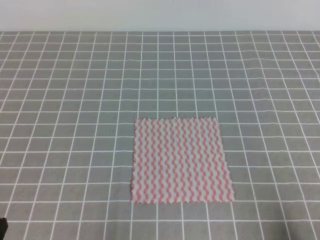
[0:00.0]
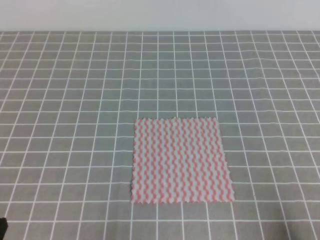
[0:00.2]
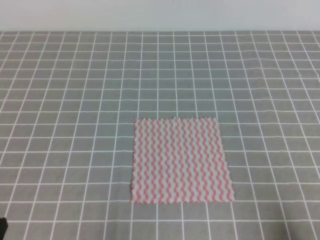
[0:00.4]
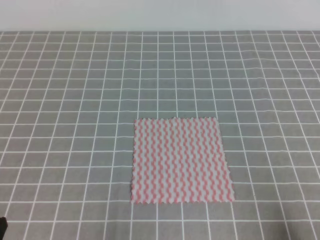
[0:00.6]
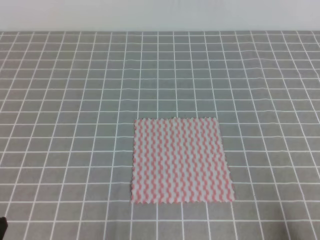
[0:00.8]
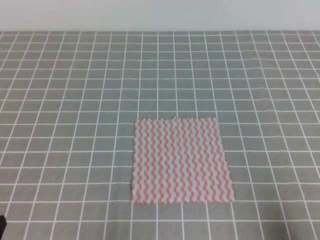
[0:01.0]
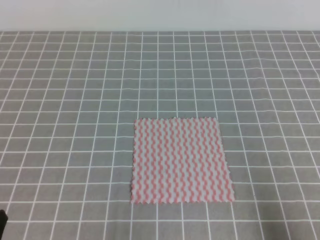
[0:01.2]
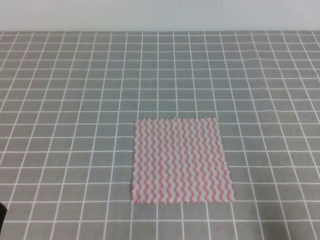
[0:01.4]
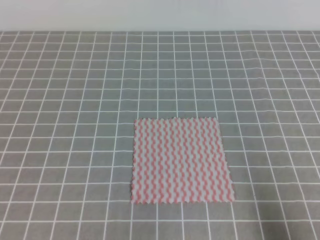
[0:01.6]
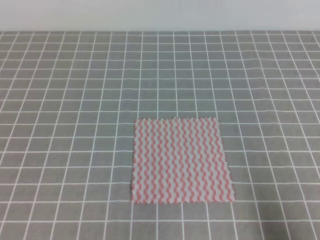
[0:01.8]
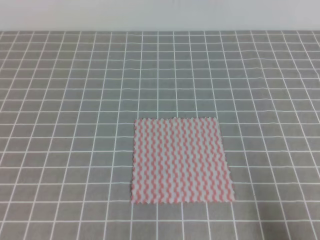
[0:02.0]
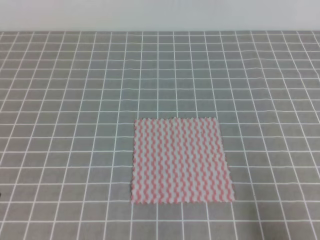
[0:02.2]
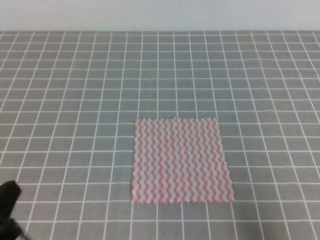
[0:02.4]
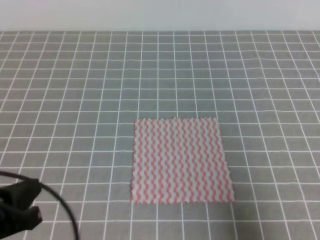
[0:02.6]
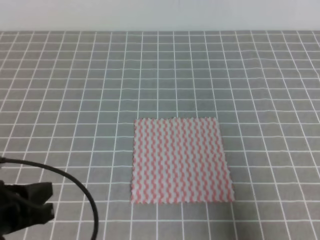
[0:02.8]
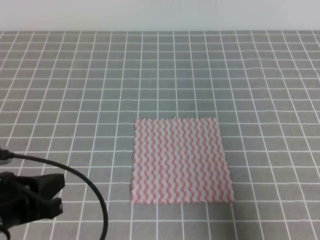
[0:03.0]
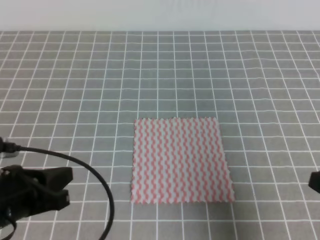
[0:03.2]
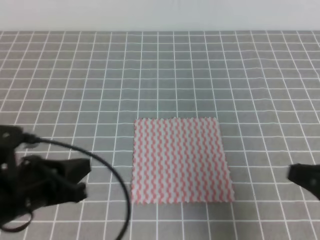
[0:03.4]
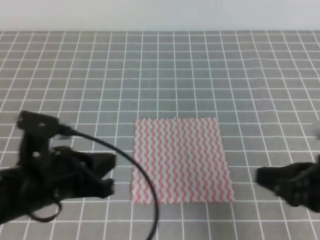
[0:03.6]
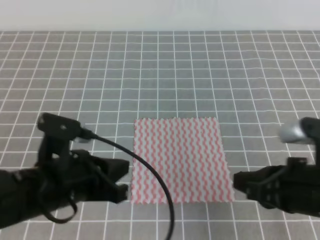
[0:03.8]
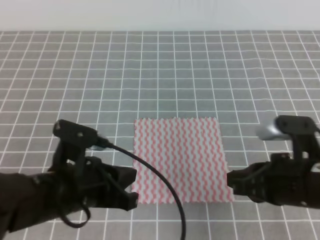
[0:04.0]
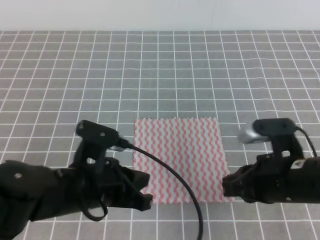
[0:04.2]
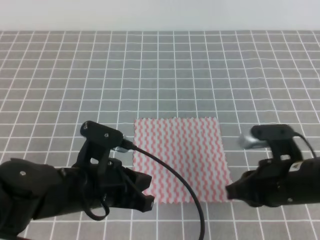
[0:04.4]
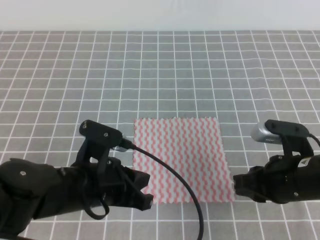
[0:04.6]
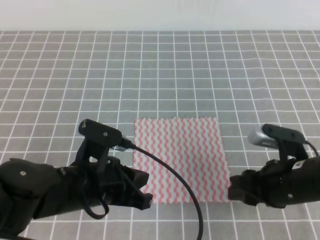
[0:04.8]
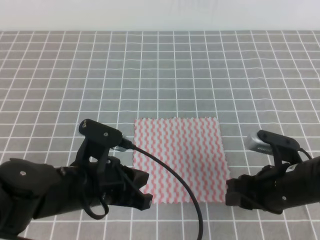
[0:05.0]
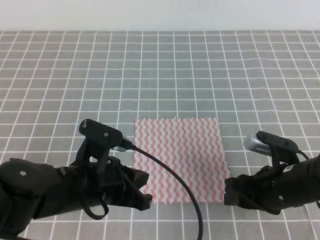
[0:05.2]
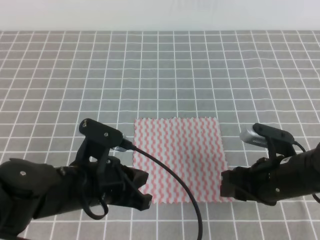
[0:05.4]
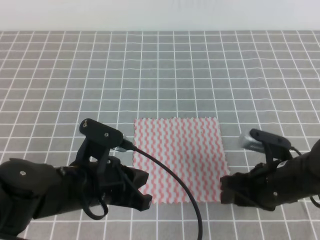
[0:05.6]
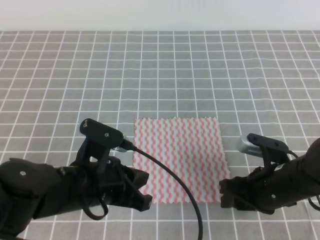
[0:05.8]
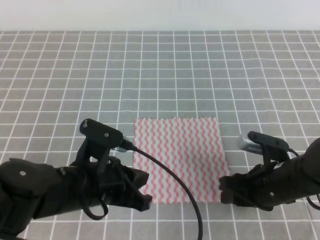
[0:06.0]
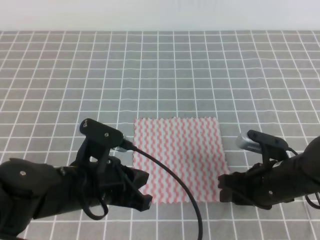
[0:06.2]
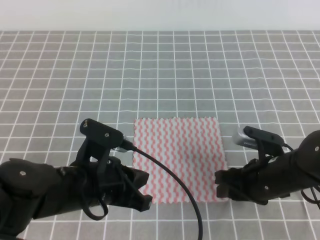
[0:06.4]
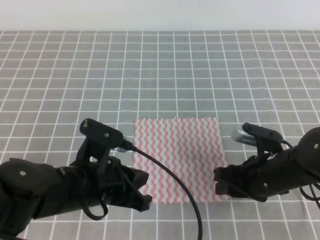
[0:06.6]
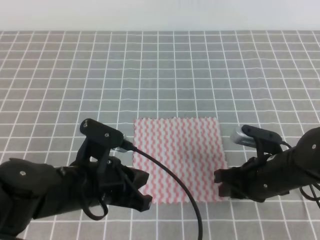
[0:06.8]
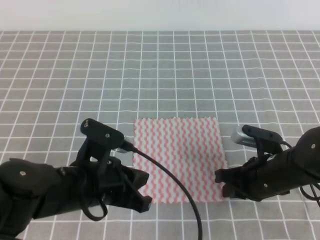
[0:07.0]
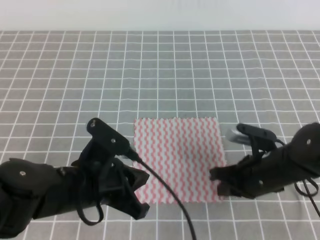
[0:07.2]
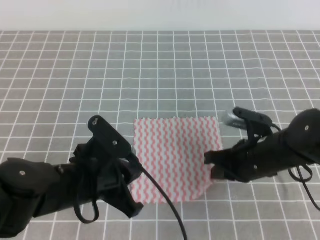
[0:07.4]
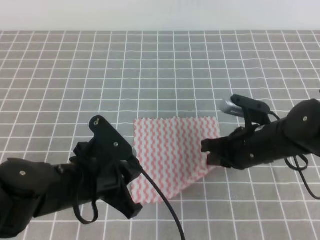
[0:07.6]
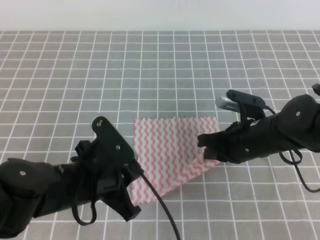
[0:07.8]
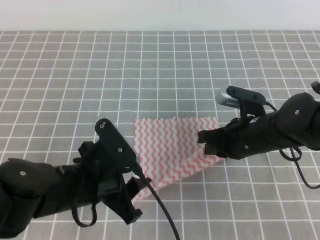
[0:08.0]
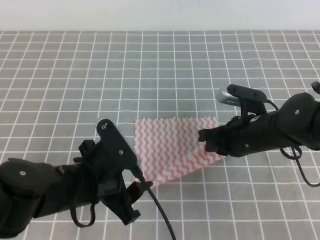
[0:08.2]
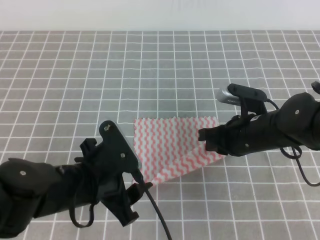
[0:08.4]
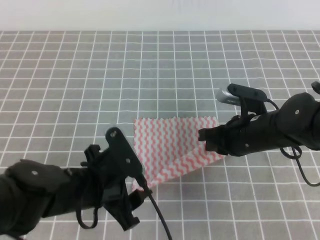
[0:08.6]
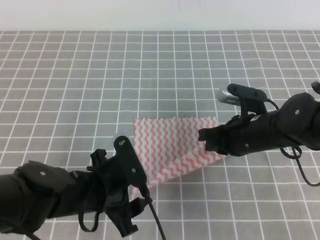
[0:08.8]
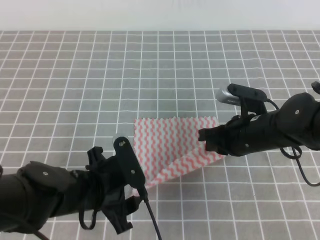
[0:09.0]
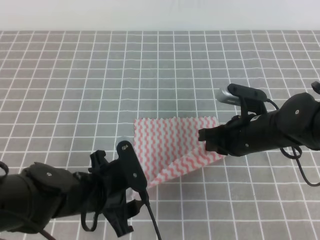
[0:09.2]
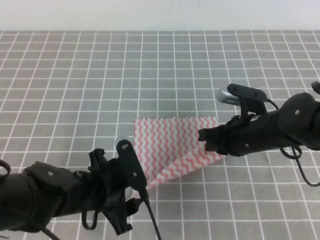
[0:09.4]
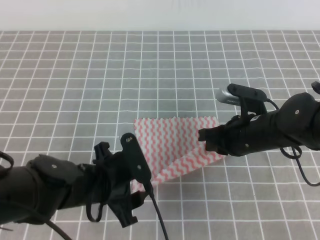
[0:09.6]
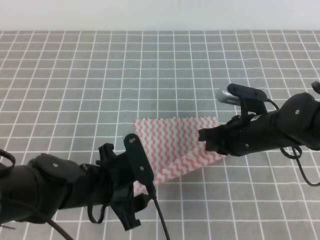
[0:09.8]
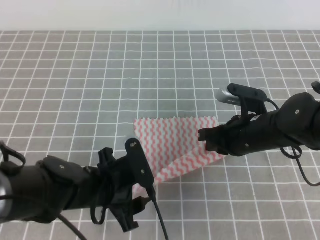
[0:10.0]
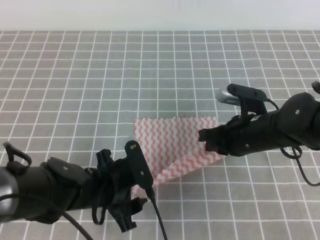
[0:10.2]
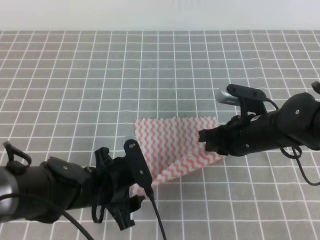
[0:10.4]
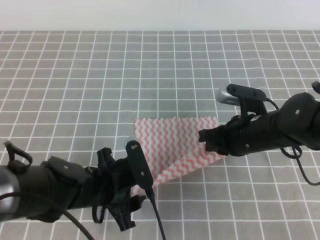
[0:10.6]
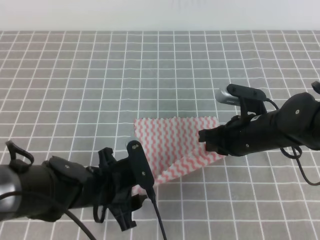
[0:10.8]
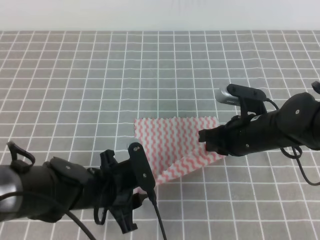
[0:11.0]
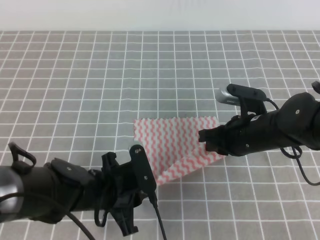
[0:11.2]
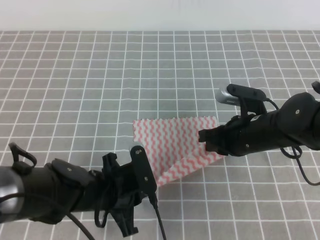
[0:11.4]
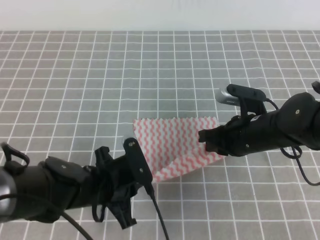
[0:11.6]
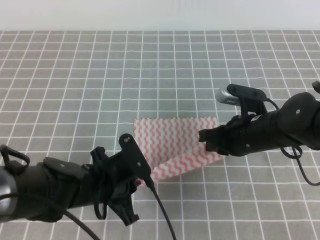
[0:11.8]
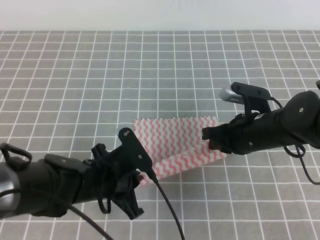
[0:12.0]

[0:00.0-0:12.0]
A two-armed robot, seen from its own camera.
0:01.6 to 0:03.0: The left gripper heads forward, covering about 10 cm; the right gripper moves upward, roughly 5 cm.
0:03.0 to 0:04.4: The left gripper travels to the right and forward by about 10 cm; the right gripper travels forward, to the left and downward by about 15 cm.
0:04.4 to 0:06.0: The right gripper goes roughly 5 cm downward, and opens.
0:06.0 to 0:07.6: The right gripper changes place by some 5 cm, and closes.
0:07.6 to 0:09.0: The left gripper opens its fingers.
0:09.0 to 0:10.4: The grippers stay close to where they were, moving slightly.
0:10.4 to 0:12.0: The left gripper closes.

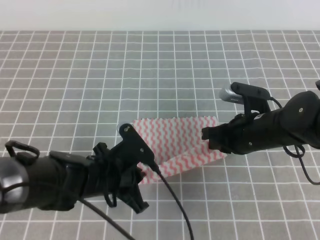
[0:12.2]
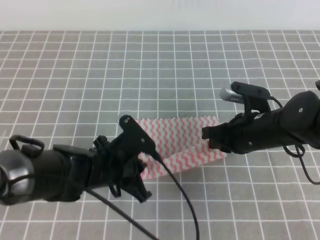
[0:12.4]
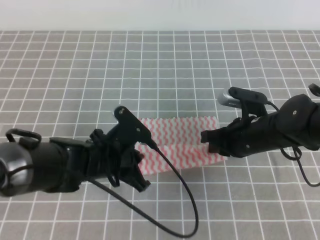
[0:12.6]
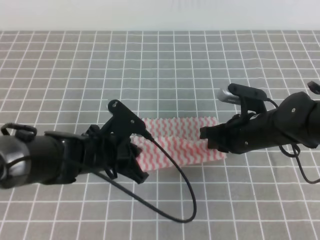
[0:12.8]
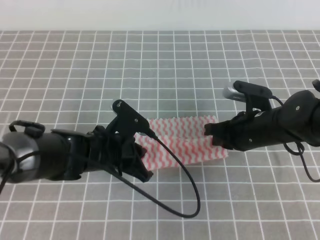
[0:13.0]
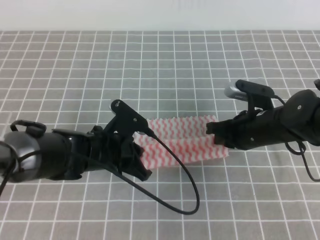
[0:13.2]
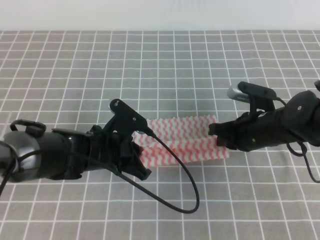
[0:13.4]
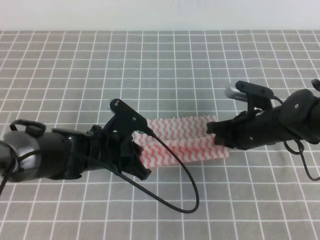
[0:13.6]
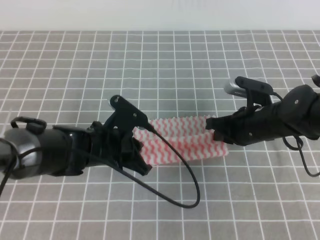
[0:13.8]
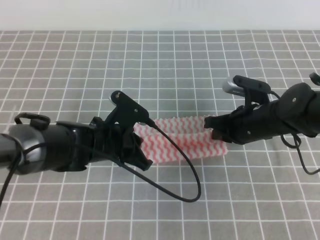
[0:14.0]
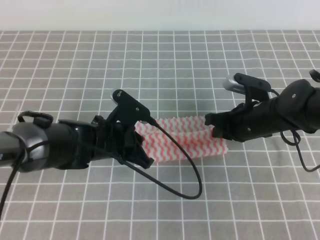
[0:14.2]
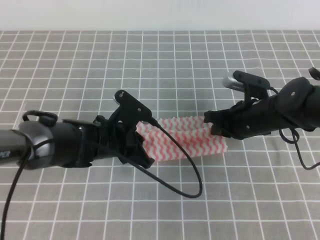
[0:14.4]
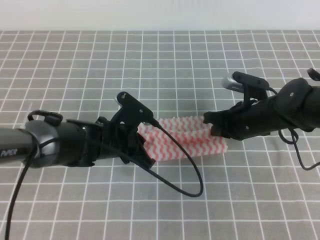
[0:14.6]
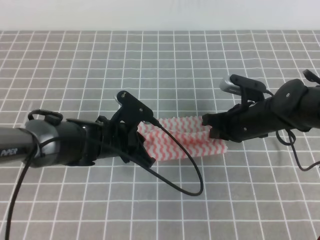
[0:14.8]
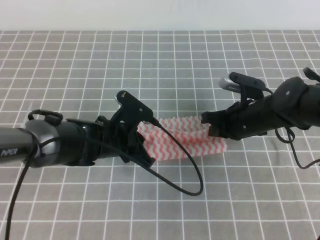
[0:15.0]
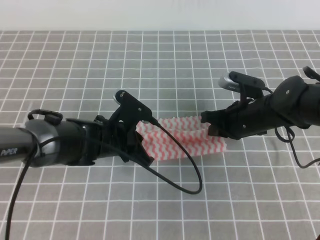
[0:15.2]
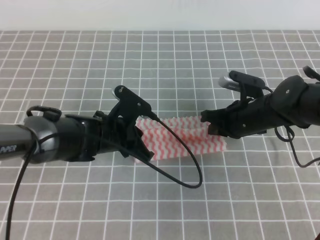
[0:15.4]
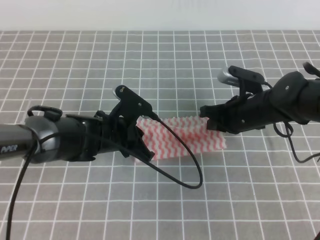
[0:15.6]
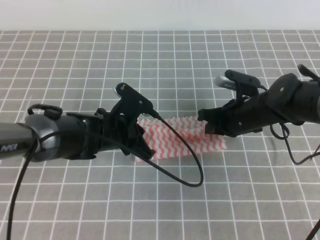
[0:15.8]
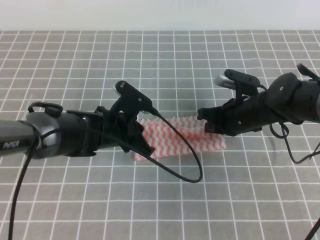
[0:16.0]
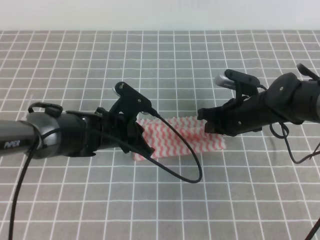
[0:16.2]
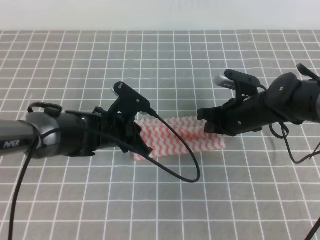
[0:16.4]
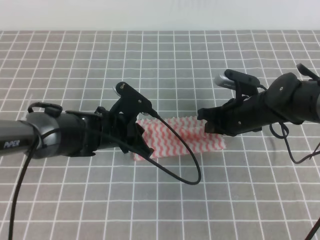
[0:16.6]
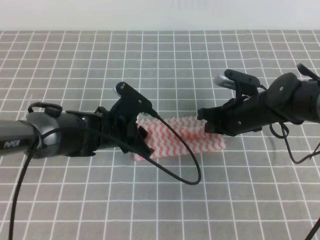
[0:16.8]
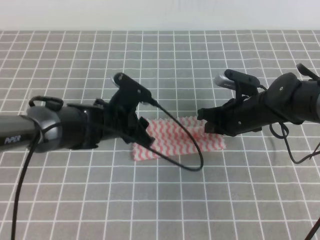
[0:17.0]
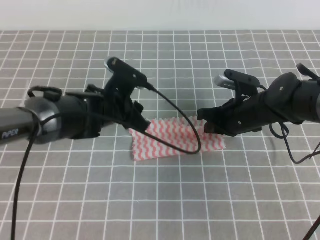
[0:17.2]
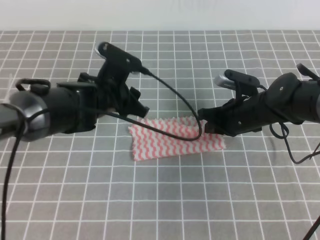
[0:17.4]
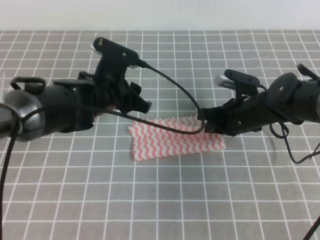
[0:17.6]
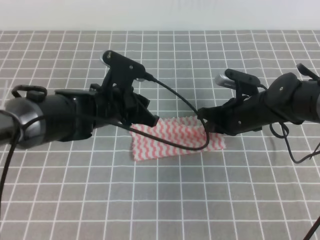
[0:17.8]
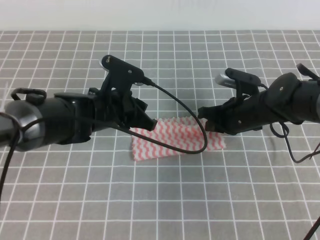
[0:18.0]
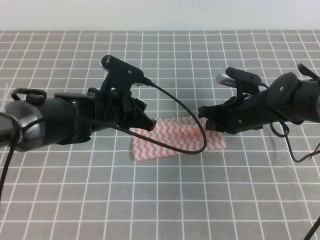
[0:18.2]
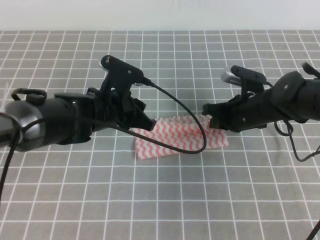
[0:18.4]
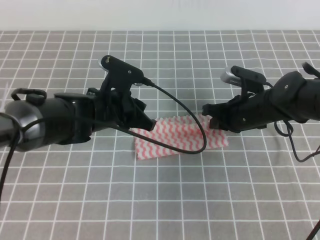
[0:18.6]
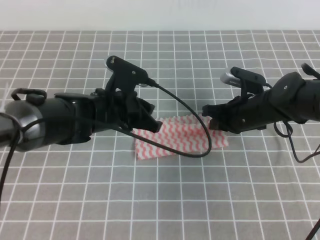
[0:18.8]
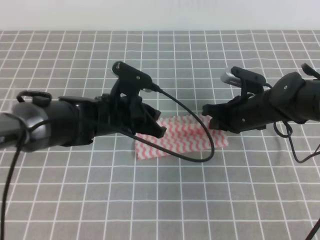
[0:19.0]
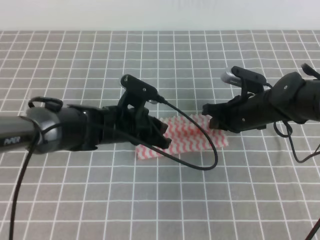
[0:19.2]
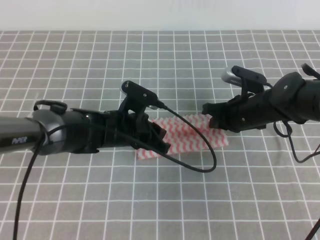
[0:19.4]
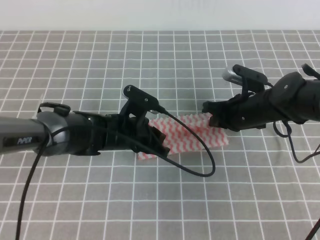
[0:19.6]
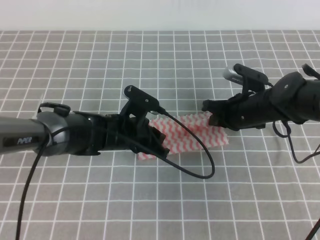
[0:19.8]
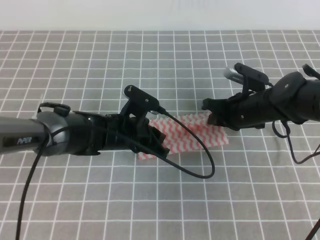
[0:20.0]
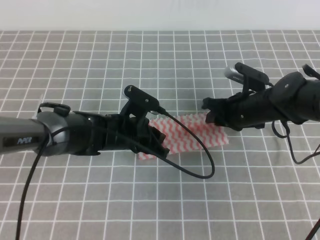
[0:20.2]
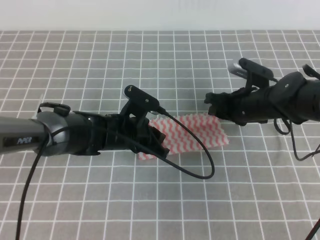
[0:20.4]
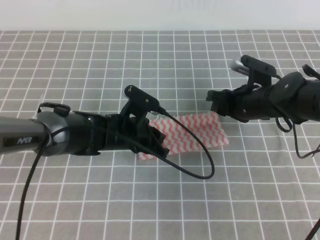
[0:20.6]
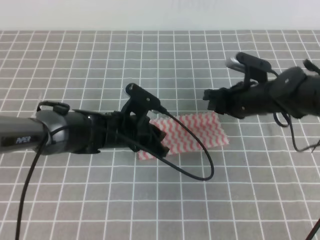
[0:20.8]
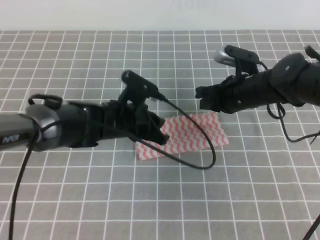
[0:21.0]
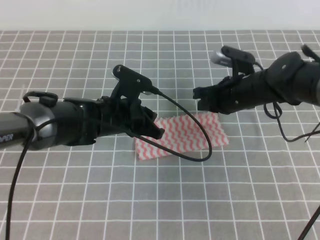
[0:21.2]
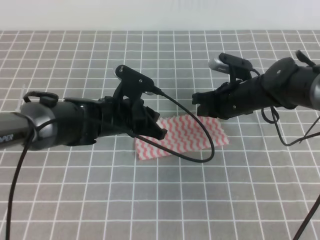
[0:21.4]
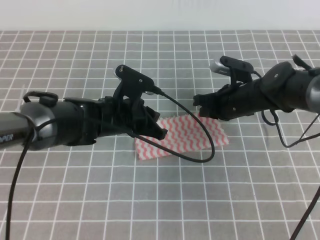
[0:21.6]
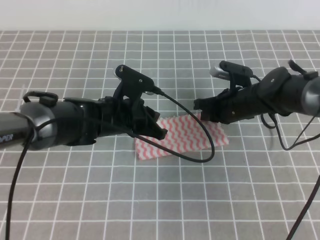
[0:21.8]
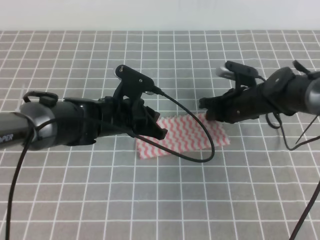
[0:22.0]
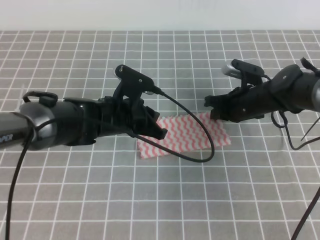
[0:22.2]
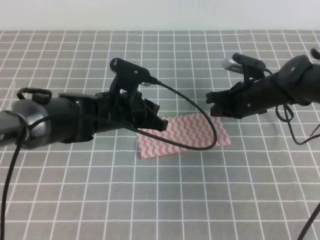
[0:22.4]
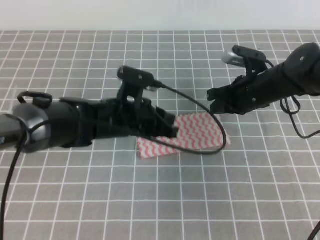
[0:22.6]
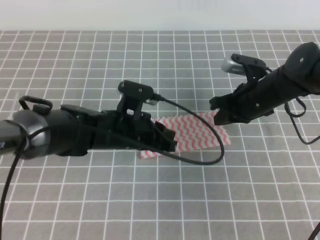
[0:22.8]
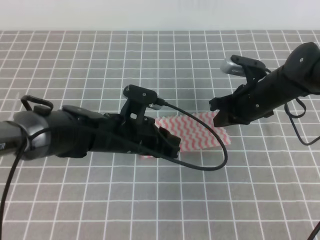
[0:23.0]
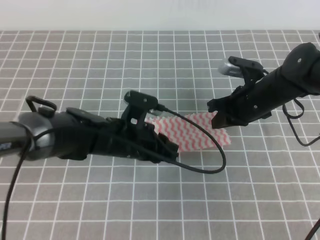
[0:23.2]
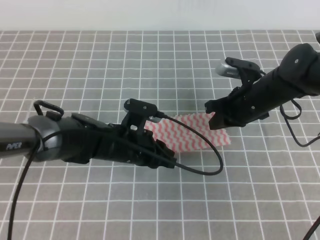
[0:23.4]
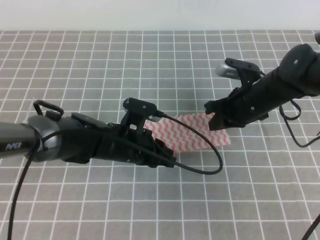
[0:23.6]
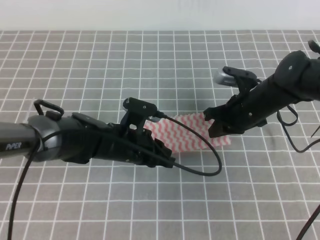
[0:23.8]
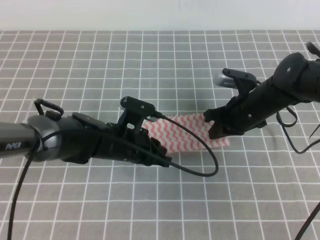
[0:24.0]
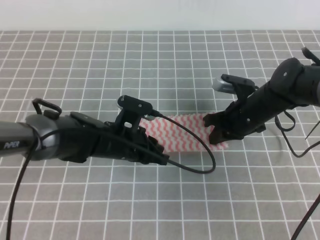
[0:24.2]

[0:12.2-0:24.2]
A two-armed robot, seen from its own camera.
0:12.2 to 0:13.8: The left gripper moves forward, roughly 5 cm.
0:13.8 to 0:16.6: The grippers move only a little.
0:16.6 to 0:18.2: The left gripper heads upward, covering roughly 5 cm.
0:18.2 to 0:19.8: The left gripper travels downward by about 5 cm.
0:19.8 to 0:21.2: The right gripper opens, then closes once more.
0:21.2 to 0:22.6: The grippers stay close to where they were, moving slightly.
